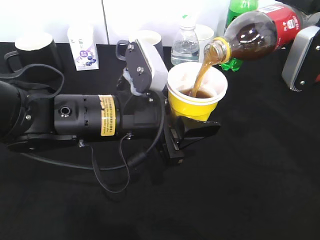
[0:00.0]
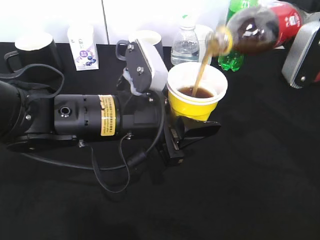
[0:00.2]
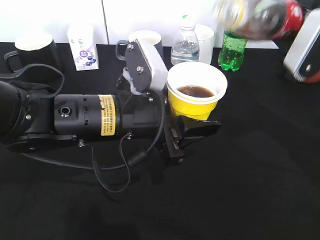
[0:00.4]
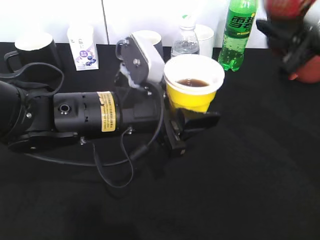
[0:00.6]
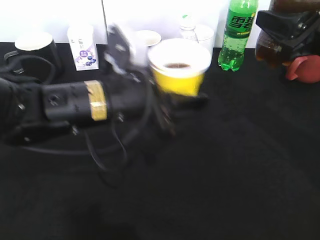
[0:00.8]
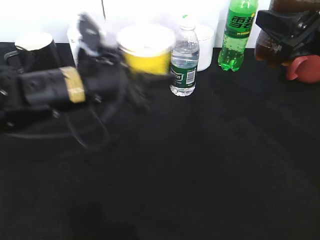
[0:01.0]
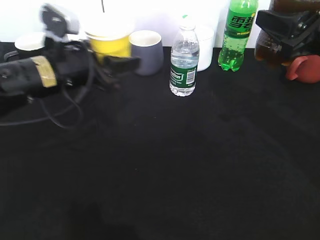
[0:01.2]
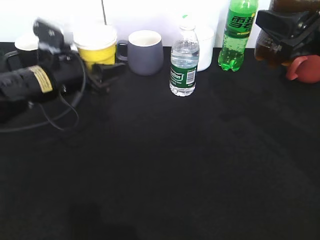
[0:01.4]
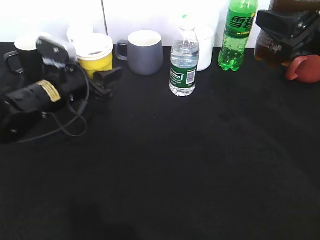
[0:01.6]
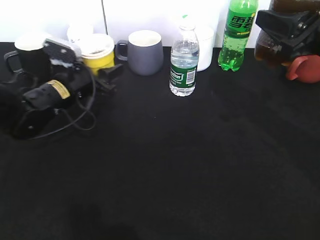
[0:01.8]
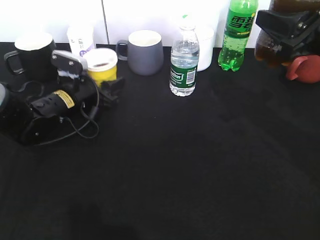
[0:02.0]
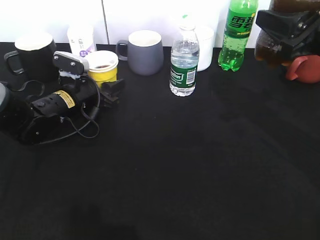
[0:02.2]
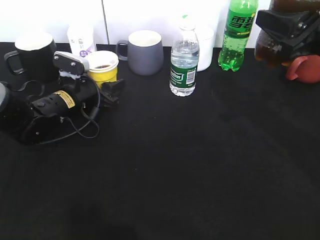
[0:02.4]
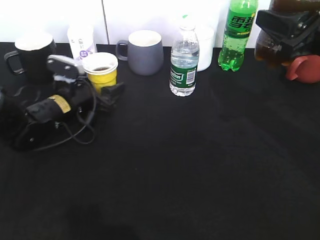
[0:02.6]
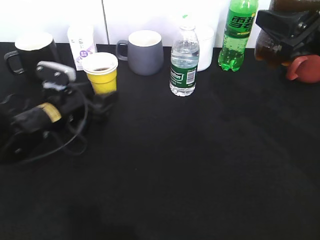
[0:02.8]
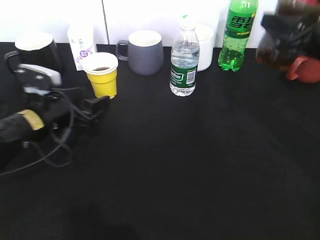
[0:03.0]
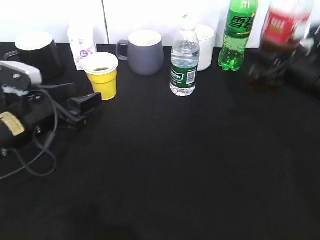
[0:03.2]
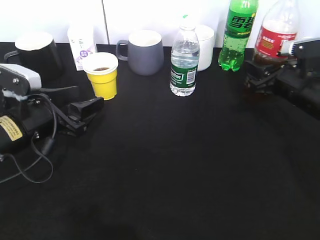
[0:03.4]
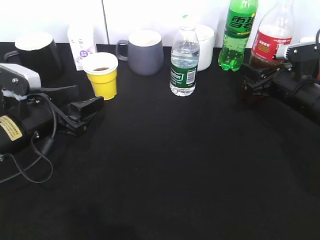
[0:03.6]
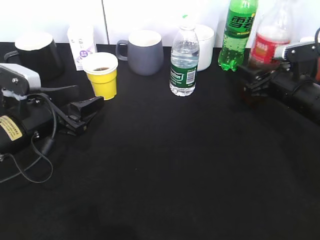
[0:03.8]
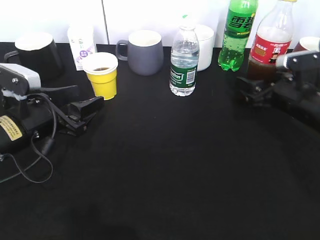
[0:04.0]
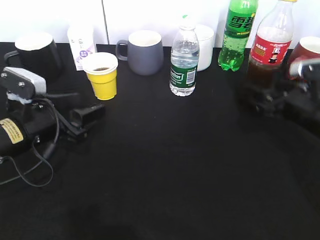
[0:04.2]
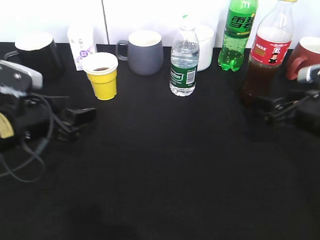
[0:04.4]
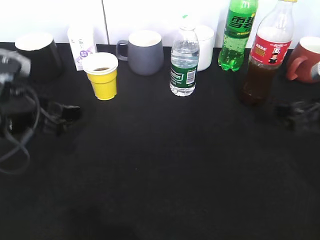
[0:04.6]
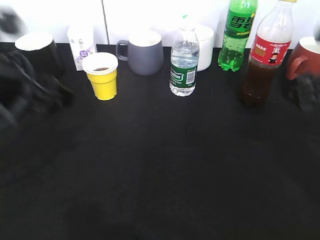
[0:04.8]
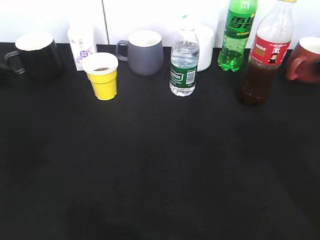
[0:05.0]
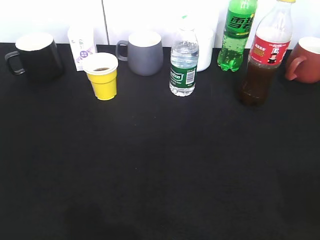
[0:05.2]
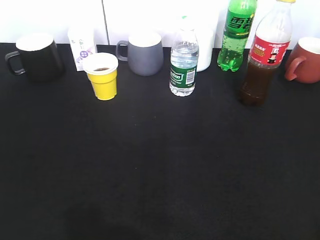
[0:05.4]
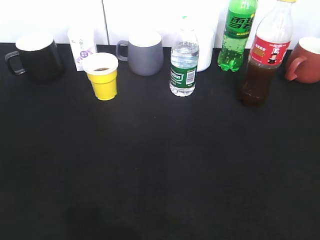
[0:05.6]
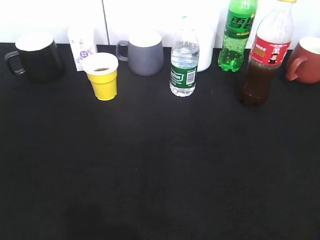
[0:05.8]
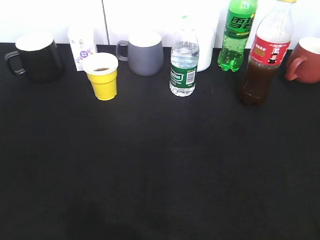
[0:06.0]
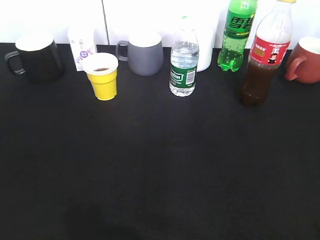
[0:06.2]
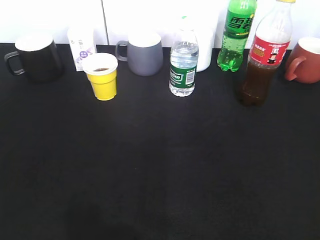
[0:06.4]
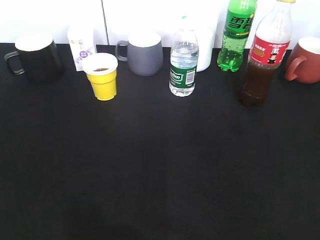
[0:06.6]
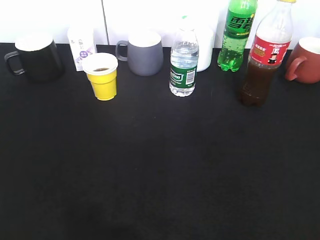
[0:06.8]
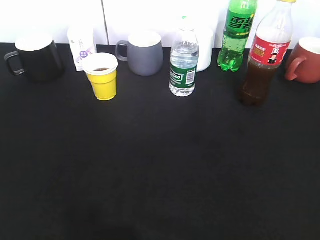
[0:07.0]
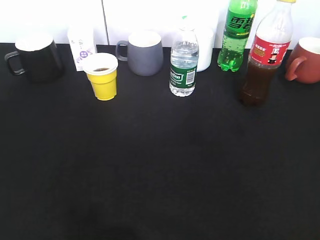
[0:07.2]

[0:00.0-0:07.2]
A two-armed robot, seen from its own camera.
Step, 0:00.2 to 0:02.8: Place the yellow paper cup on the table with left gripper.
Step, 0:03.2 to 0:04.4: Place the cola bottle on the table with right gripper.
0:00.0 to 0:01.4: The left gripper moves to the left and forward, about 15 cm.
0:01.4 to 0:02.8: The left gripper is displaced downward by roughly 10 cm, and opens.
0:02.8 to 0:04.4: The right gripper heads downward, covering about 10 cm, and opens up; the left gripper moves backward and upward, approximately 10 cm.
0:04.4 to 0:05.8: The left gripper is displaced backward, upward and to the left by roughly 30 cm; the right gripper heads backward and upward, covering some 30 cm.
